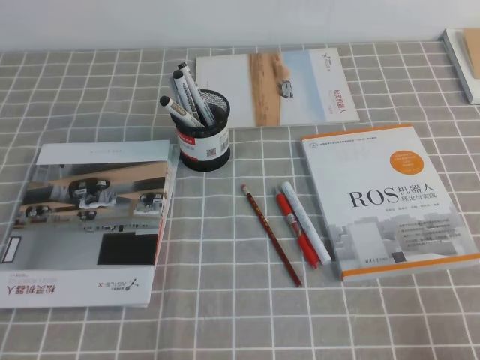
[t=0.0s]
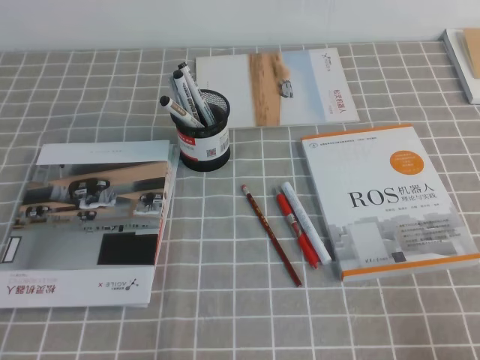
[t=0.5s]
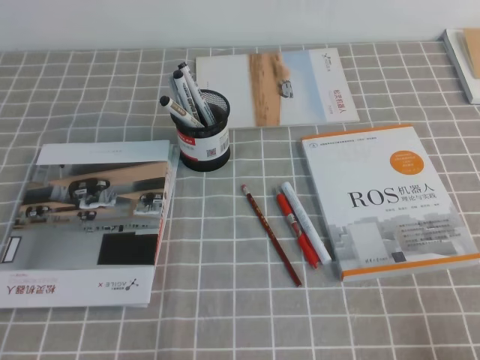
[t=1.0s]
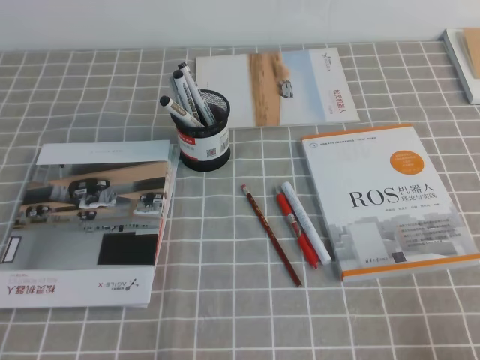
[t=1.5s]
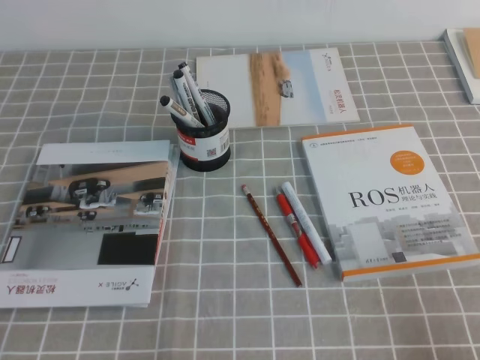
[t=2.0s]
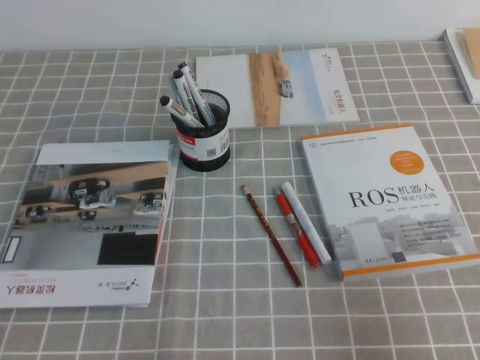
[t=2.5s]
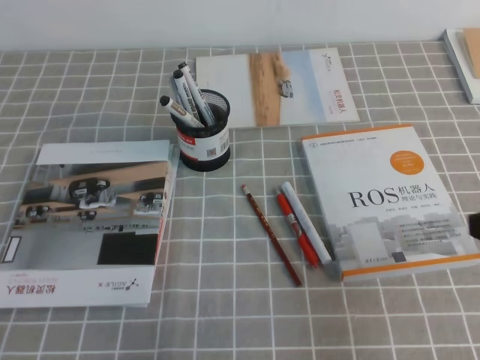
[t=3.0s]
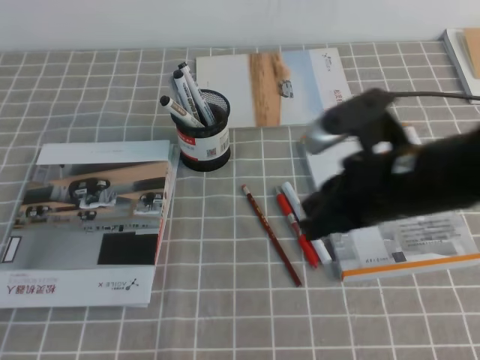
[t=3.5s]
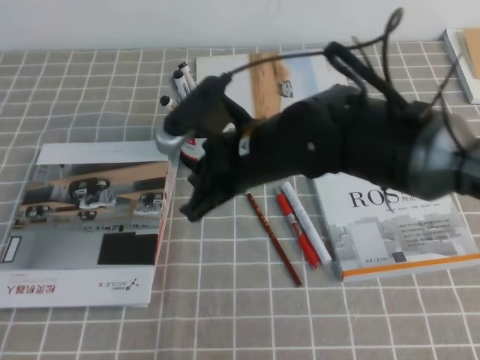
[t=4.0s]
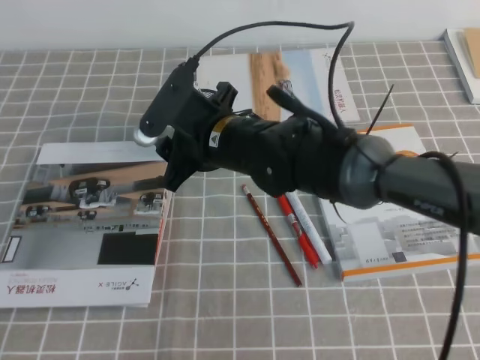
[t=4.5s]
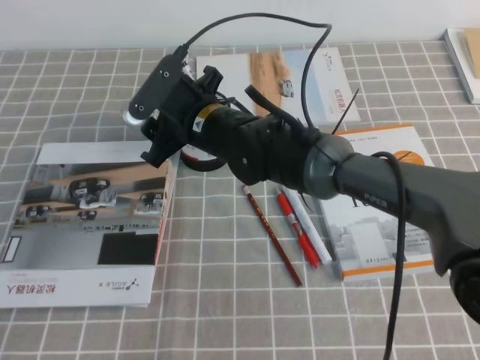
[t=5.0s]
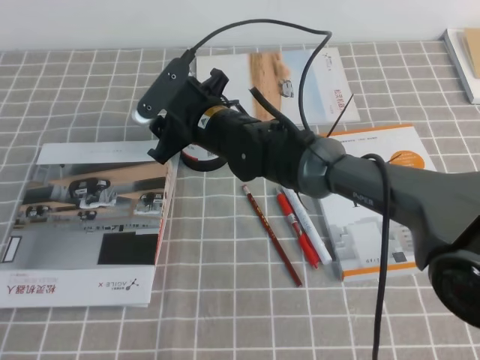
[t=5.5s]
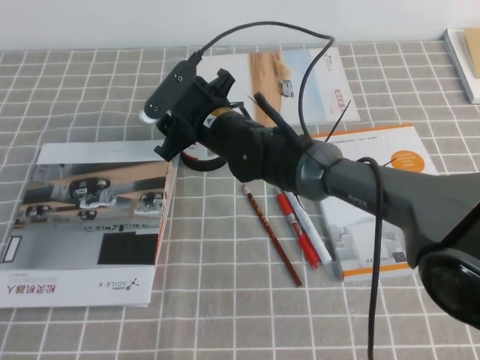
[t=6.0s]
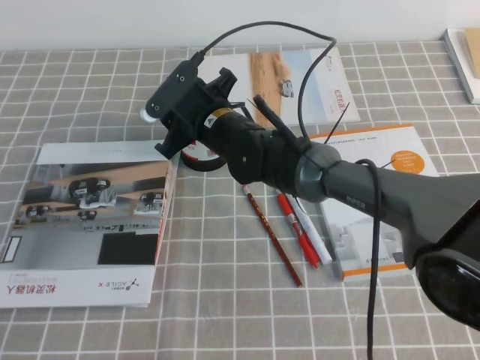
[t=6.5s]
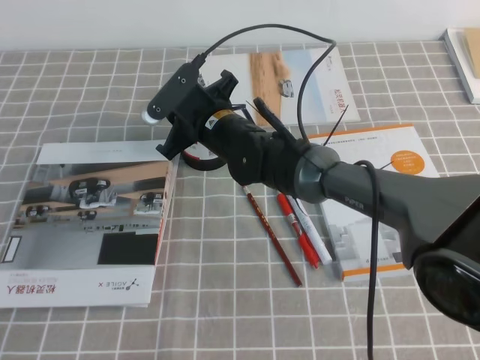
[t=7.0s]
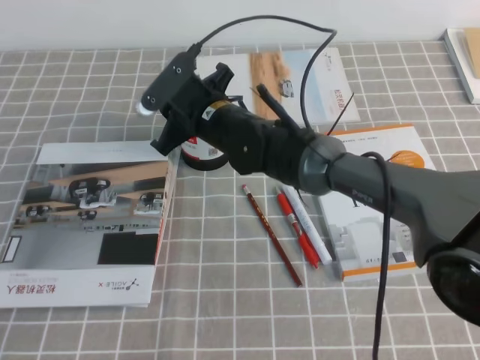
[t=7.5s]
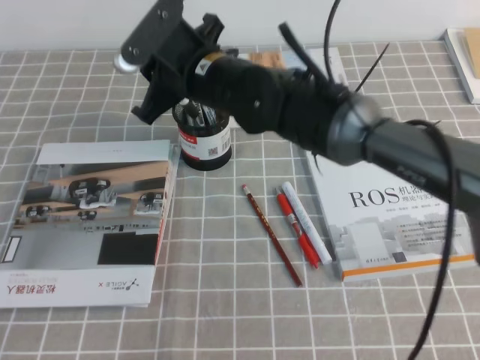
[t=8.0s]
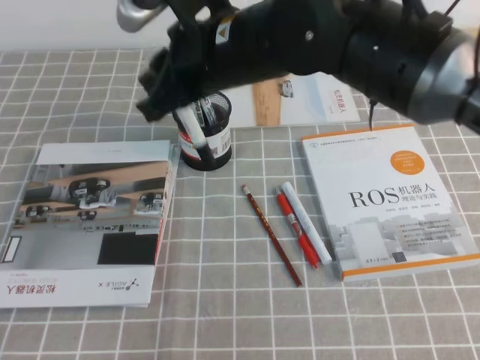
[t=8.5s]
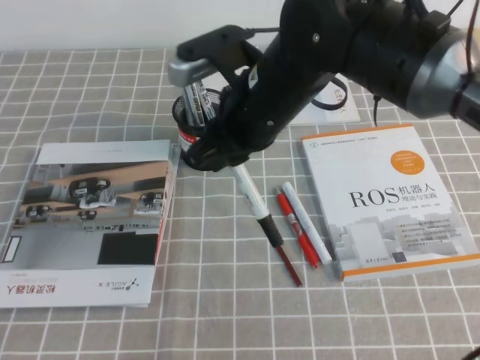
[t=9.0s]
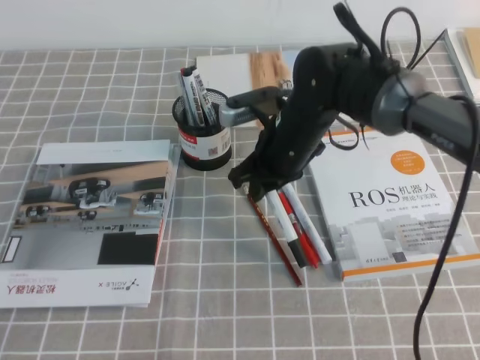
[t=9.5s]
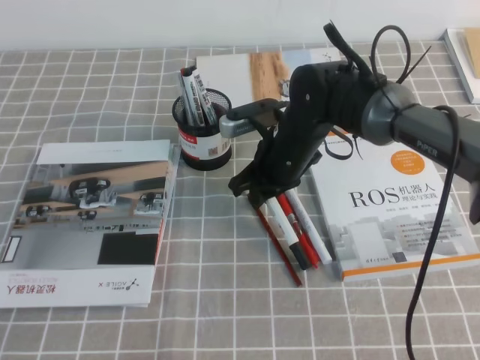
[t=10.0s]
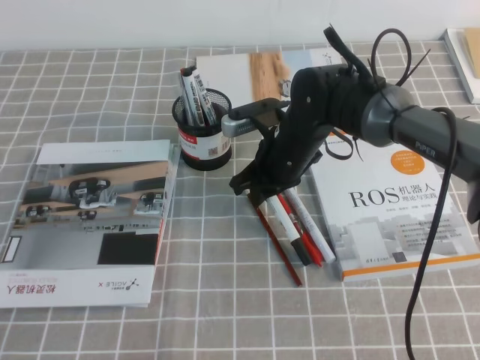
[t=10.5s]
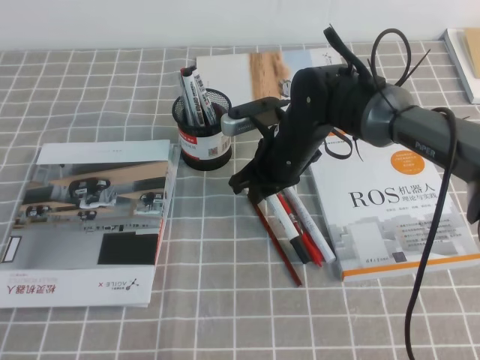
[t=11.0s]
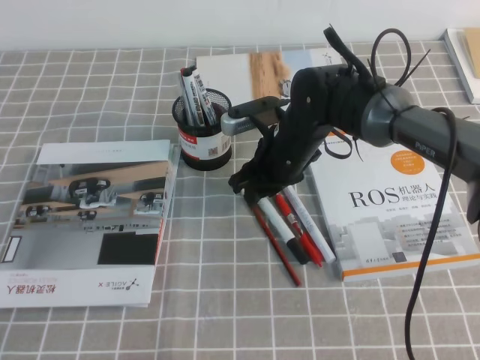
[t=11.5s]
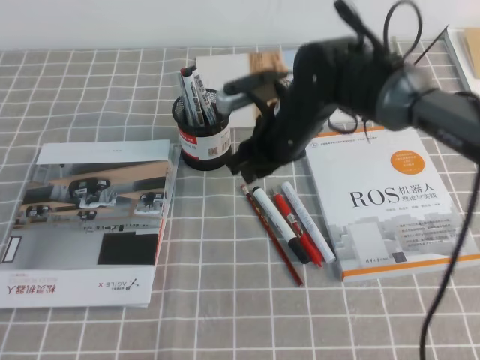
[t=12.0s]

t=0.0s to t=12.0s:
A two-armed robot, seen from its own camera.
t=2.0s to t=4.0s: The right gripper heads to the left and forward, covering approximately 40 cm.
t=4.0s to t=6.0s: The right gripper moves forward, to the left and downward, roughly 15 cm, and opens its fingers.
t=6.0s to t=8.0s: The right gripper goes approximately 10 cm upward, and closes up.
t=8.0s to t=10.0s: The right gripper shifts about 15 cm downward and to the right.
t=10.0s to t=12.0s: The right gripper opens up.

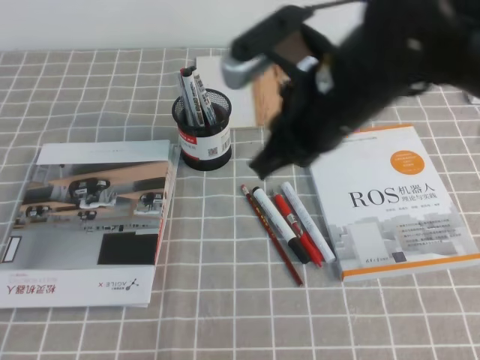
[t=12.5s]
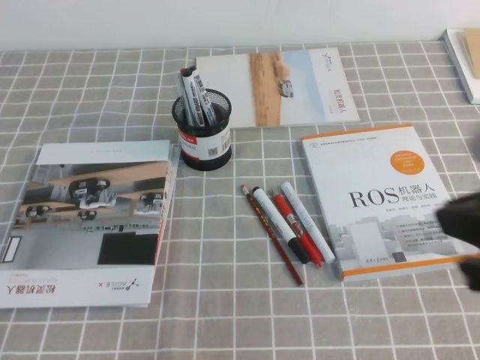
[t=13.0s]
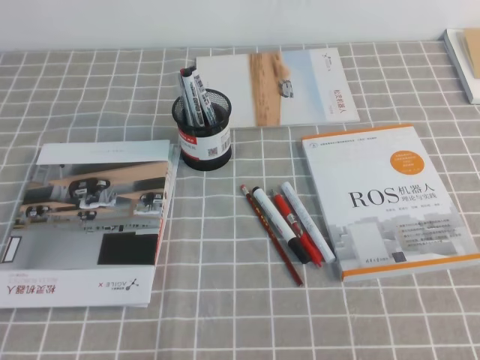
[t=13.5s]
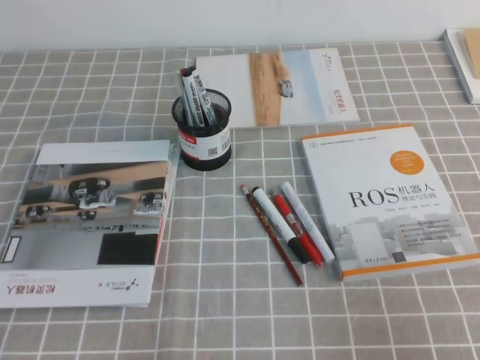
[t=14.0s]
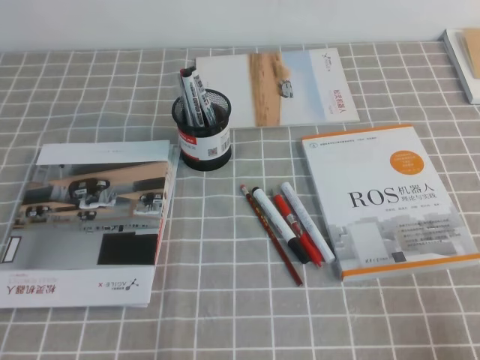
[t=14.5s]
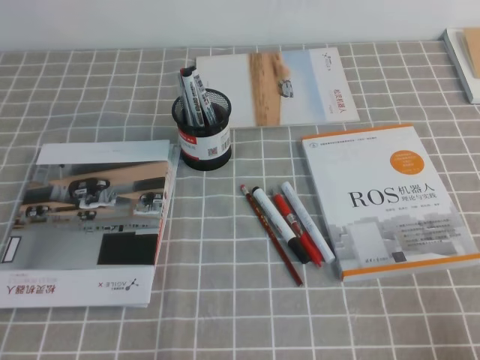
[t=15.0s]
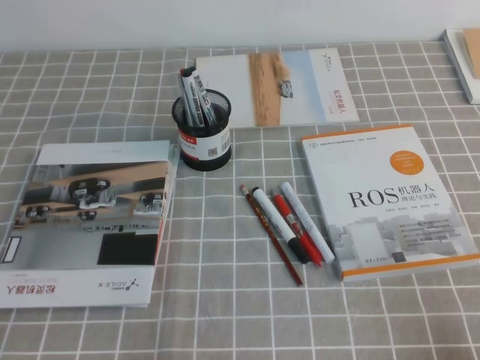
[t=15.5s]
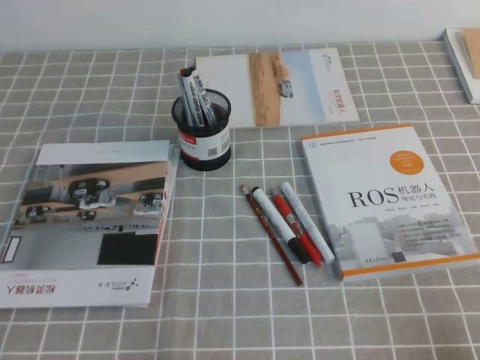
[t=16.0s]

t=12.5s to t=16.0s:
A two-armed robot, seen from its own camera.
Step, t=12.5s to t=16.0s: Pick up the pen from the pen holder.
t=12.5s to t=14.5s: The right gripper goes some 35 cm to the right, backward and downward.
